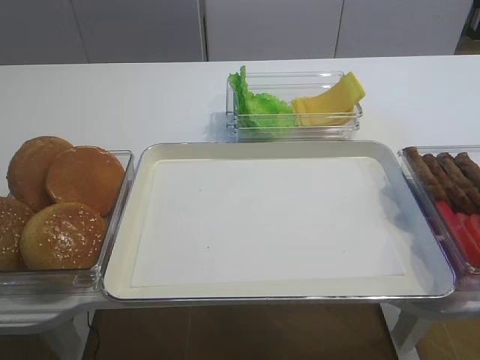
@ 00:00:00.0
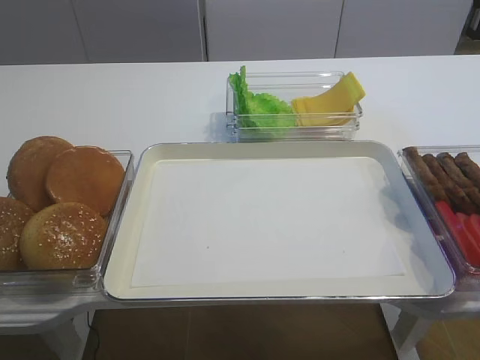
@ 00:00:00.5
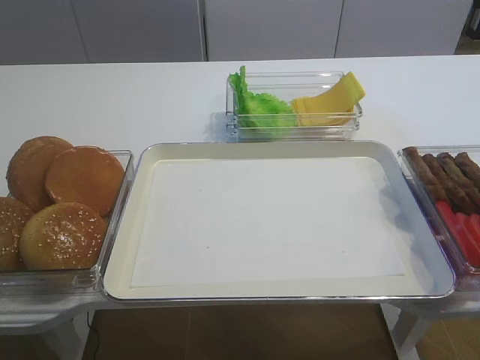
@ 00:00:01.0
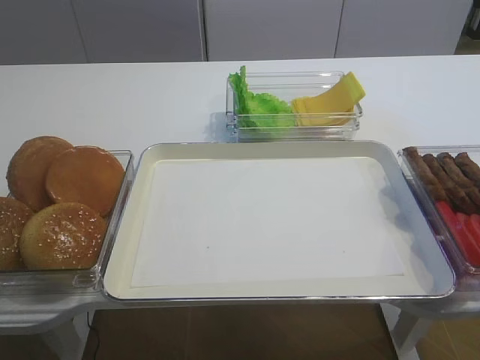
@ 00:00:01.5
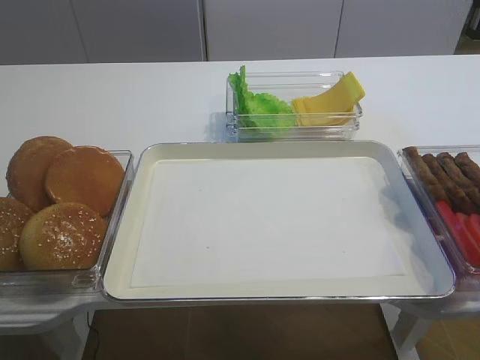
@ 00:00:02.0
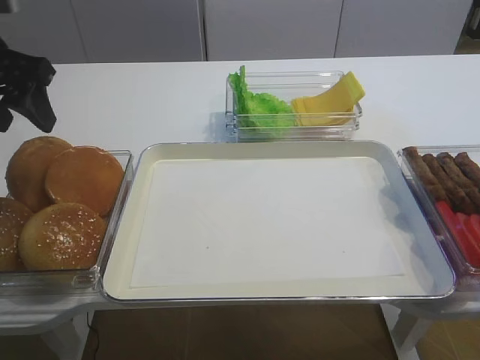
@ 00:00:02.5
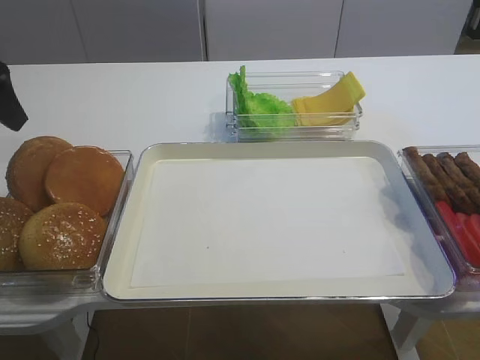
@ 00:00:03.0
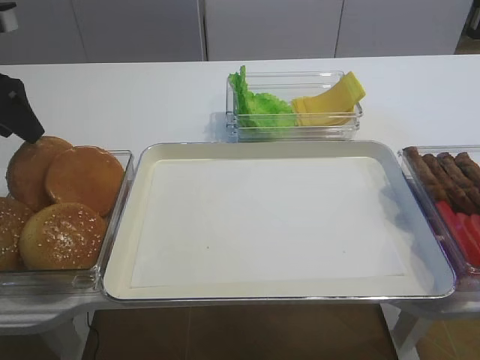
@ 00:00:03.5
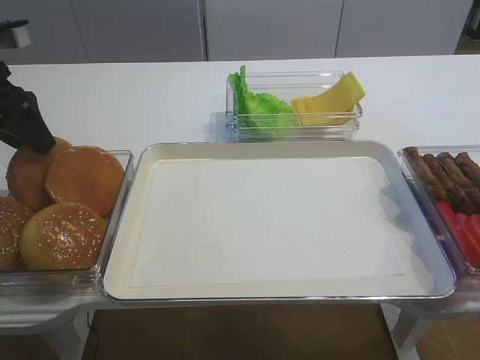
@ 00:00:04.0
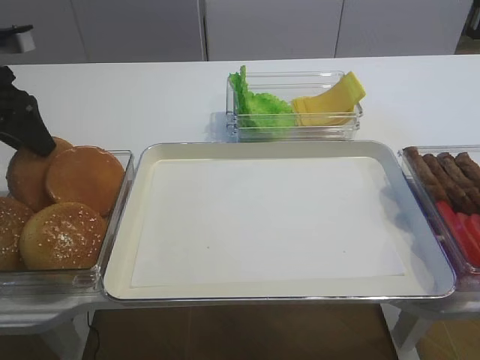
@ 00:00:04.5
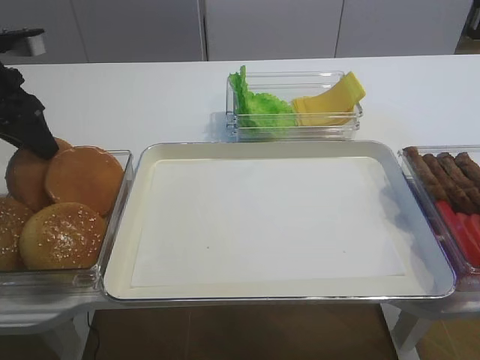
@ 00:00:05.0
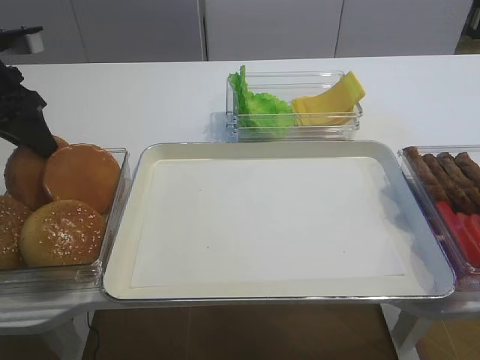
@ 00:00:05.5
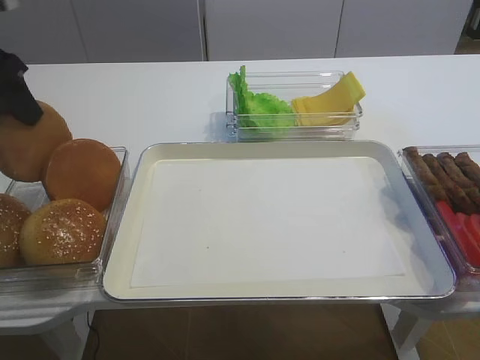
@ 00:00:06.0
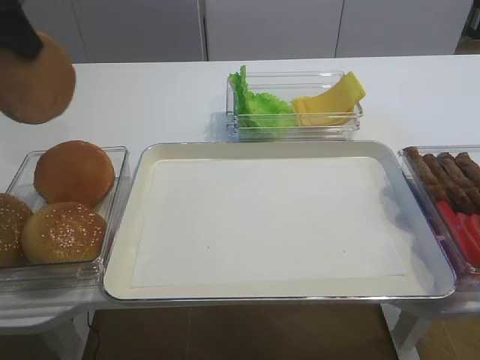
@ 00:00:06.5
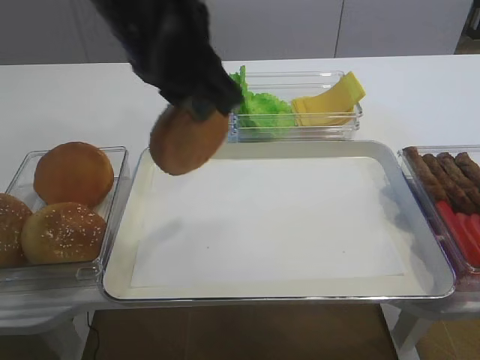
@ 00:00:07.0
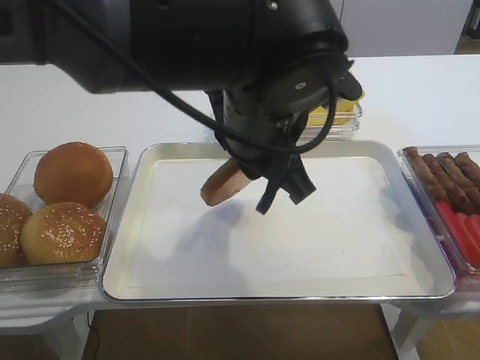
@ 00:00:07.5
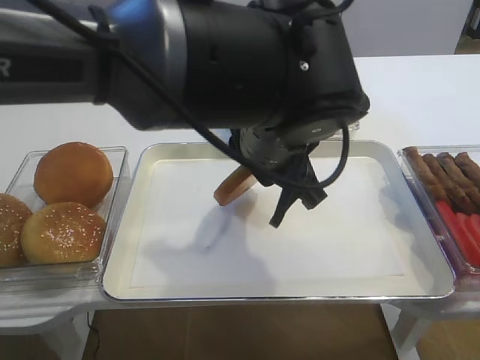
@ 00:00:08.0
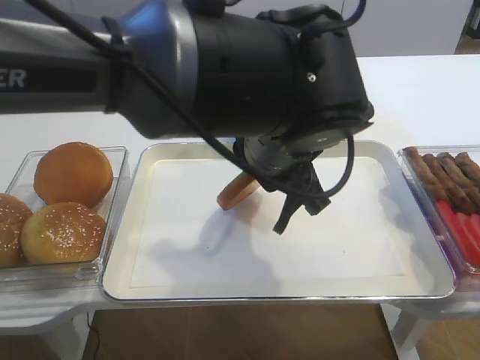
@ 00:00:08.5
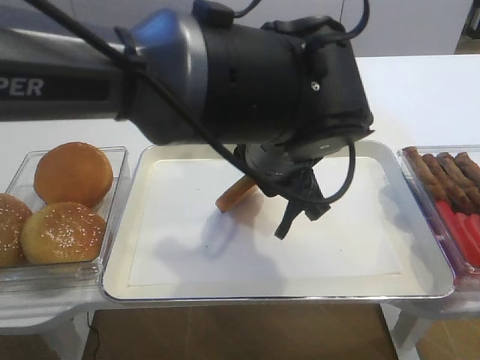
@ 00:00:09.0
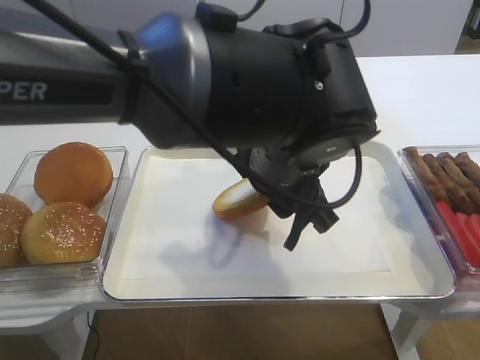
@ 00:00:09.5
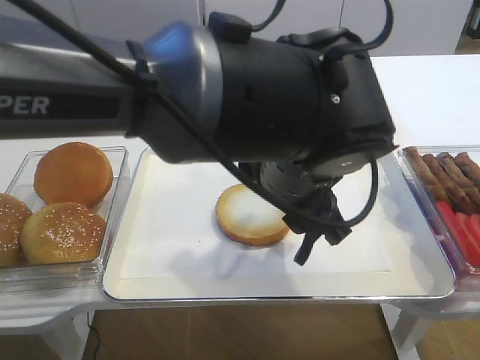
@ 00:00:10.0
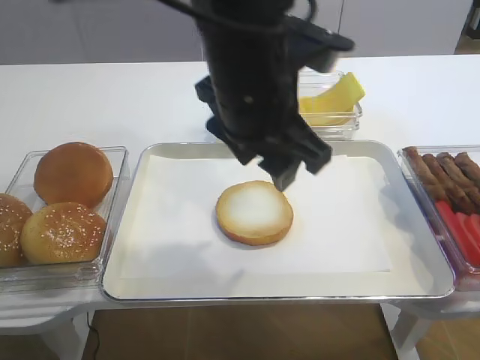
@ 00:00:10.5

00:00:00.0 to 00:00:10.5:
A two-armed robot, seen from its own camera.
Step, 00:00:00.0 to 00:00:06.0: Pick up the bread slice with the left gripper.
Step, 00:00:06.5 to 00:00:10.0: Place the bread slice on the tray with the left gripper.
00:00:02.0 to 00:00:04.0: The left gripper is displaced forward by roughly 20 cm.
00:00:04.0 to 00:00:06.5: The left gripper travels upward by some 10 cm, and closes up.
00:00:06.5 to 00:00:08.5: The left gripper shifts roughly 30 cm to the right and downward.
00:00:08.5 to 00:00:10.5: The left gripper opens.

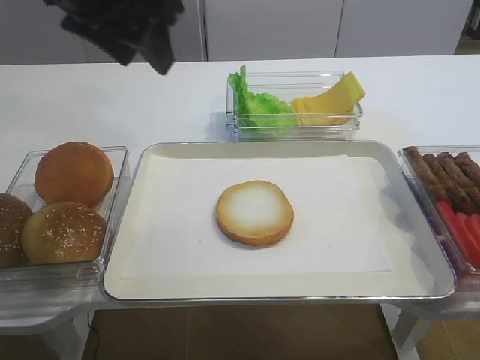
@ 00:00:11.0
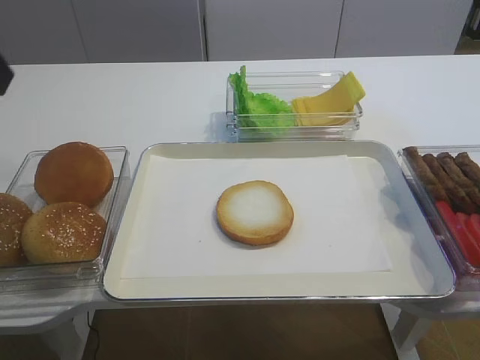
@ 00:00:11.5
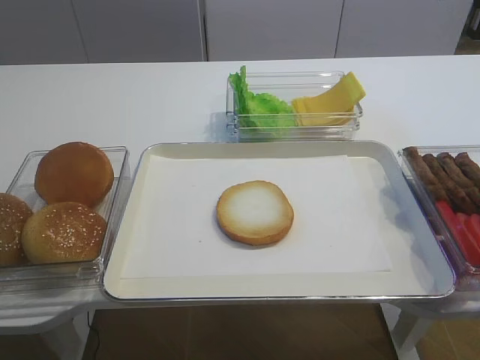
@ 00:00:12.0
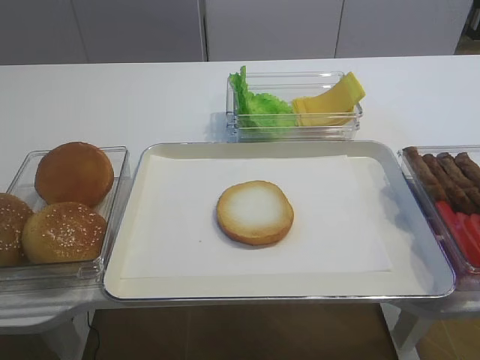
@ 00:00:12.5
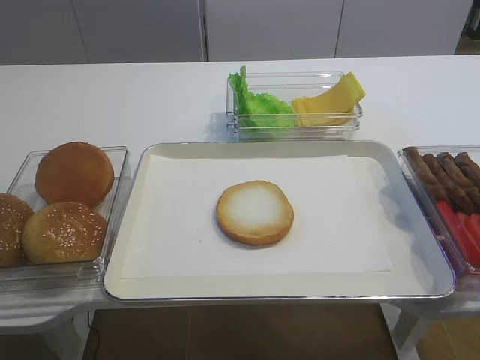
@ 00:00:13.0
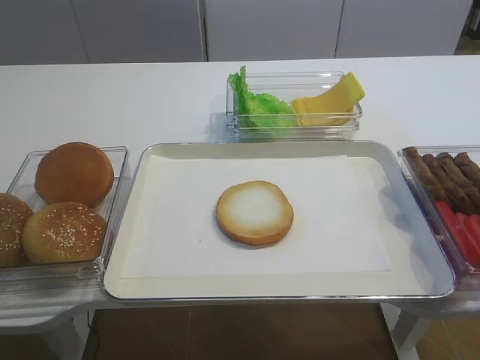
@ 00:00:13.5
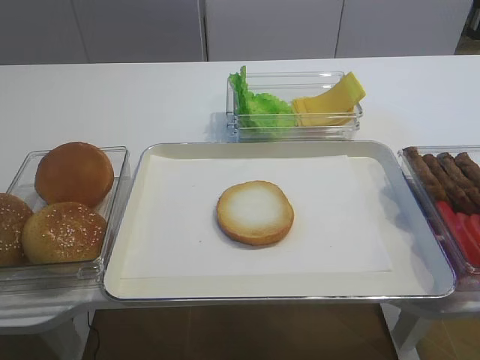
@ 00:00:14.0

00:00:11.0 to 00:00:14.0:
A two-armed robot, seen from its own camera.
00:00:11.0 to 00:00:12.5: The left gripper heads backward and to the left, covering roughly 40 cm.

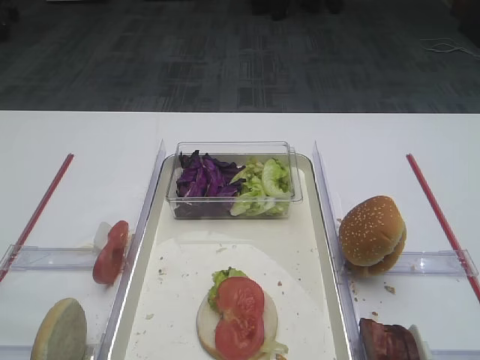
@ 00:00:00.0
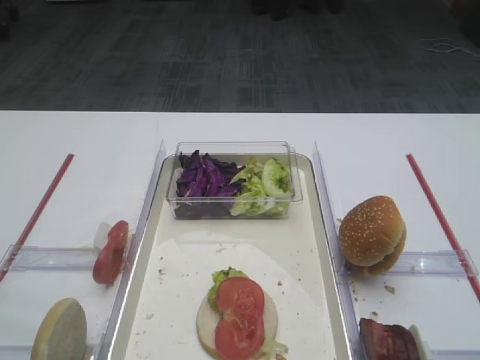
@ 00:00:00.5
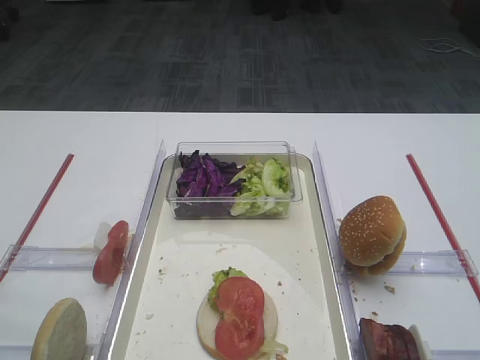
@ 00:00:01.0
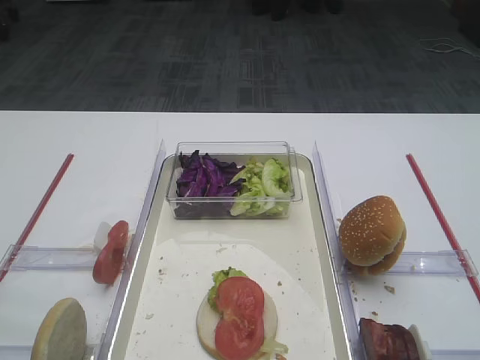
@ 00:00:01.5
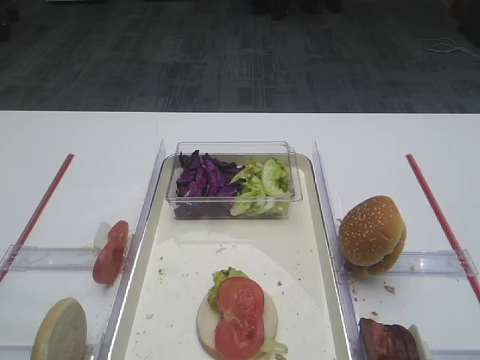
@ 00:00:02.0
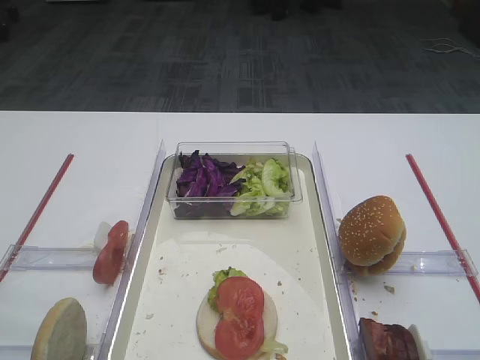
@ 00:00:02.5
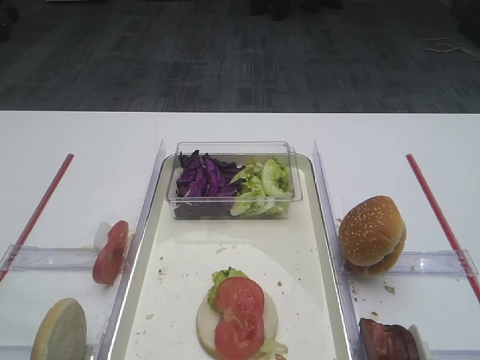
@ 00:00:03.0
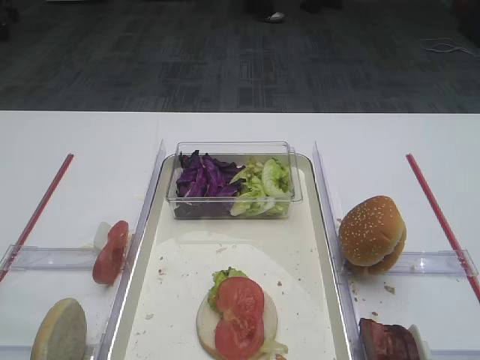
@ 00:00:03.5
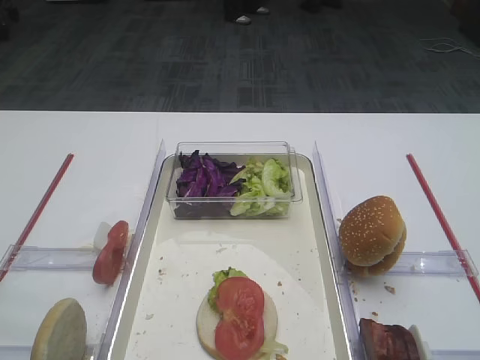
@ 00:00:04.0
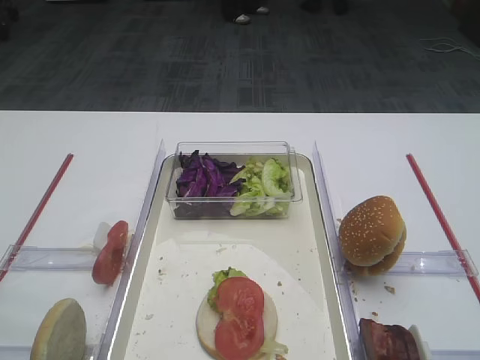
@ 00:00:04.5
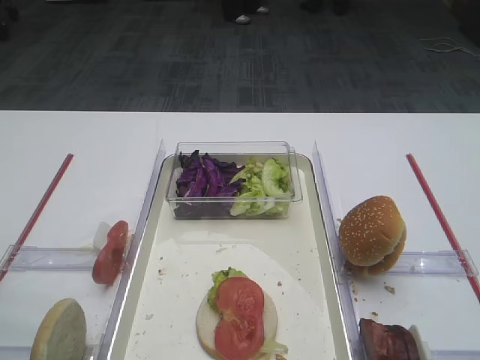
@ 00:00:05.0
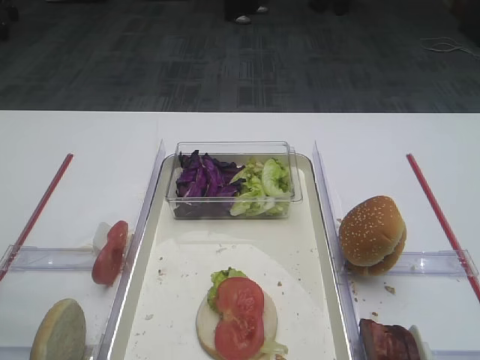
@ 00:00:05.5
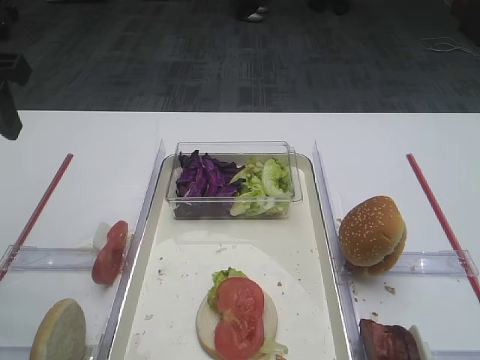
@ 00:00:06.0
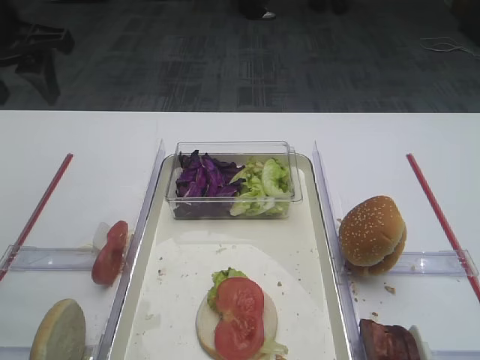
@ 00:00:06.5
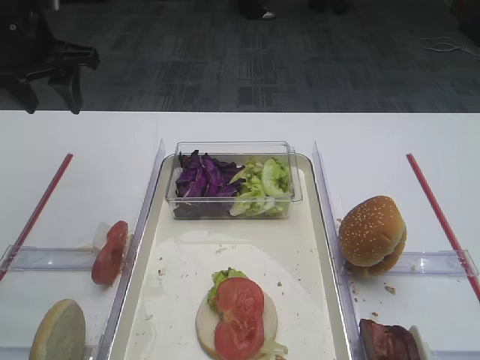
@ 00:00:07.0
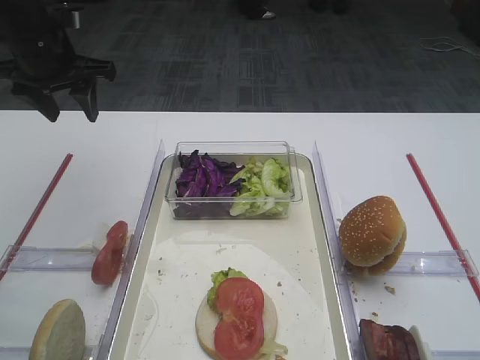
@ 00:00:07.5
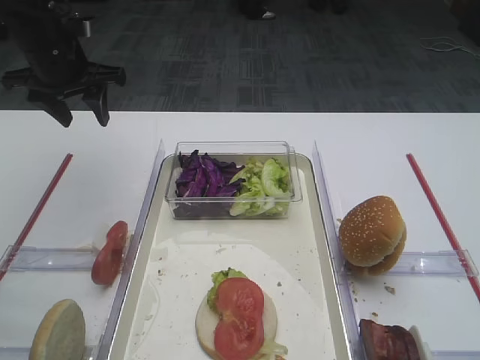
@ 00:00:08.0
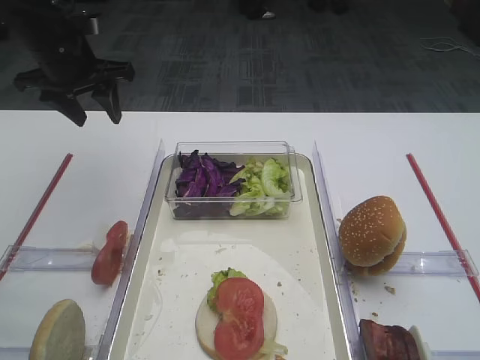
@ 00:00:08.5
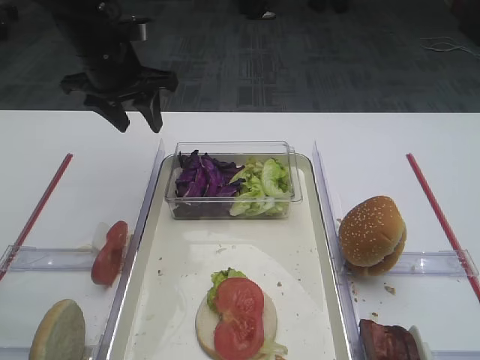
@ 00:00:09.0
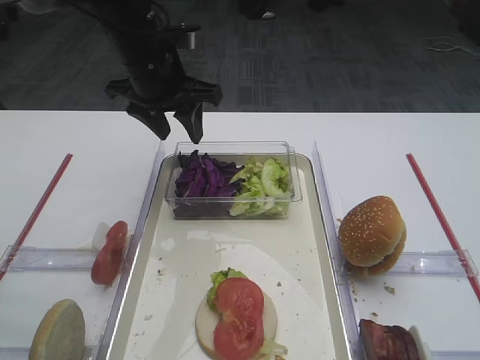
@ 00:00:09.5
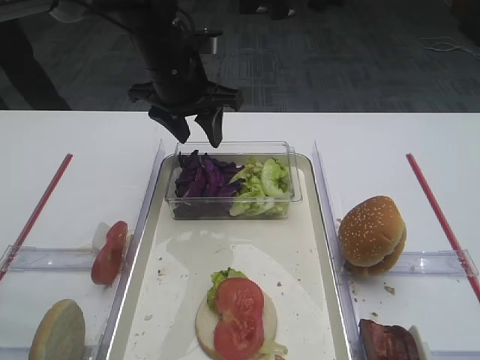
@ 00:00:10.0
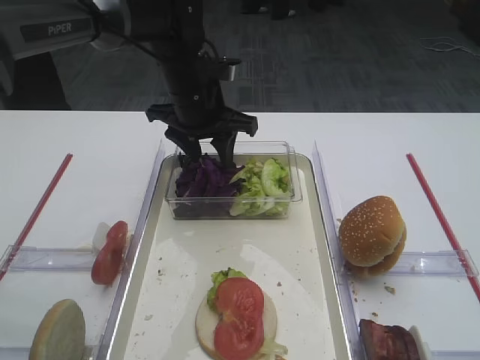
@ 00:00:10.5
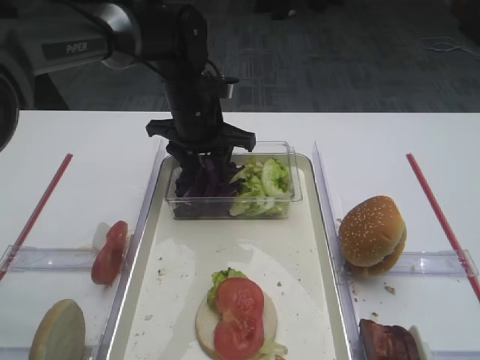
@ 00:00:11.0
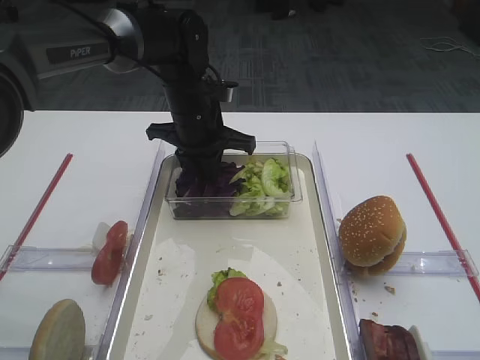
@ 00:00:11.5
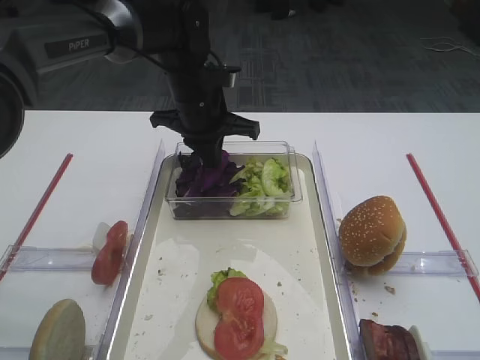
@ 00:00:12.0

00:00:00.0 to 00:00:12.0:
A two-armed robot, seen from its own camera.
00:00:02.0 to 00:00:04.0: Both grippers stay put.
00:00:04.0 to 00:00:06.0: The left gripper heads forward, covering about 25 cm.
00:00:06.0 to 00:00:08.0: The left gripper is displaced forward and downward by roughly 20 cm.
00:00:08.0 to 00:00:10.0: The left gripper goes roughly 15 cm to the right.
00:00:10.0 to 00:00:12.0: The left gripper shifts roughly 5 cm downward, and closes its fingers.
